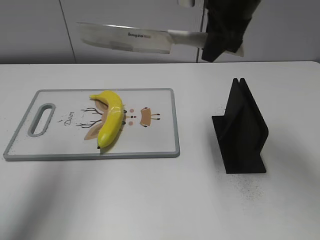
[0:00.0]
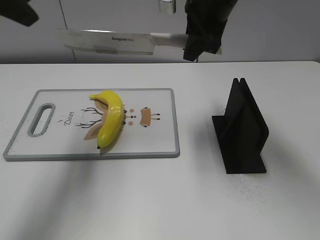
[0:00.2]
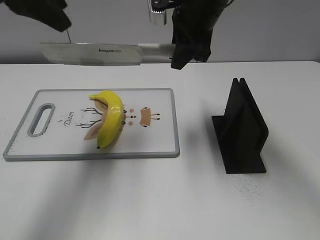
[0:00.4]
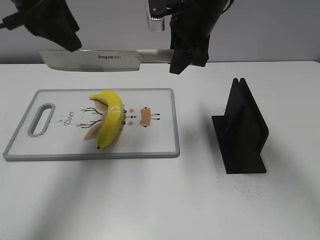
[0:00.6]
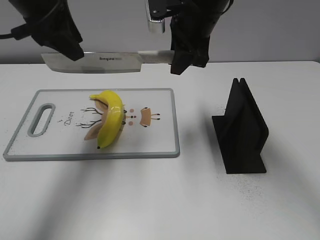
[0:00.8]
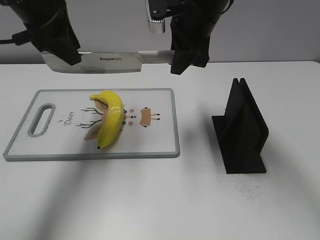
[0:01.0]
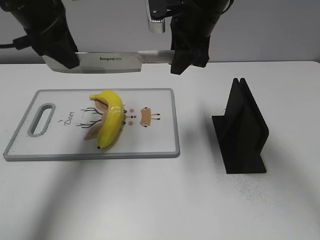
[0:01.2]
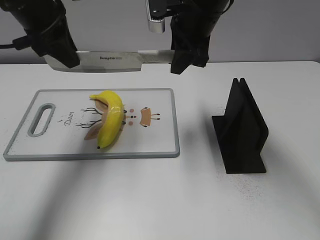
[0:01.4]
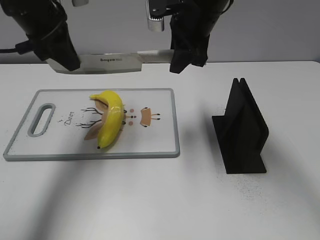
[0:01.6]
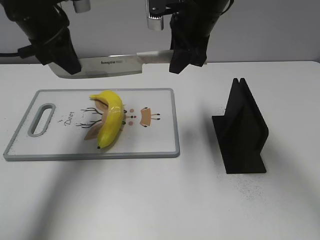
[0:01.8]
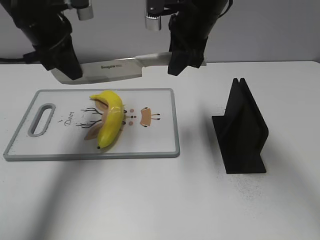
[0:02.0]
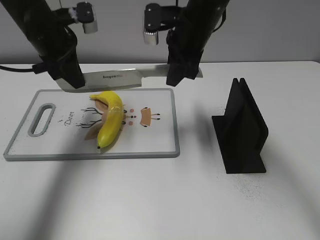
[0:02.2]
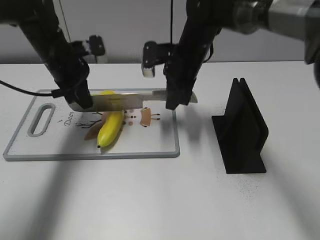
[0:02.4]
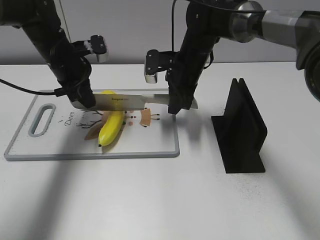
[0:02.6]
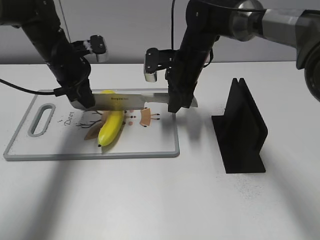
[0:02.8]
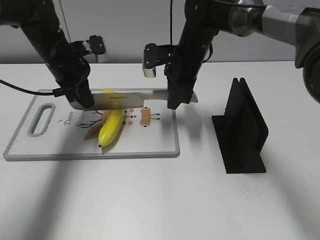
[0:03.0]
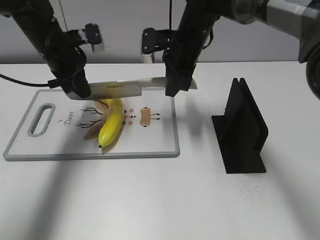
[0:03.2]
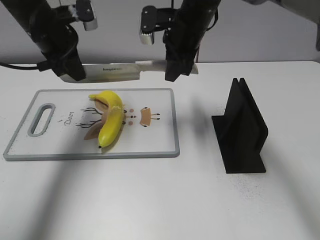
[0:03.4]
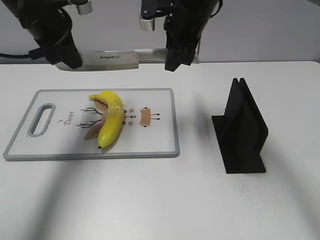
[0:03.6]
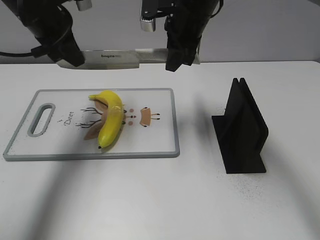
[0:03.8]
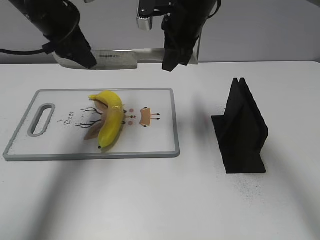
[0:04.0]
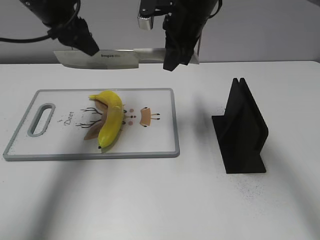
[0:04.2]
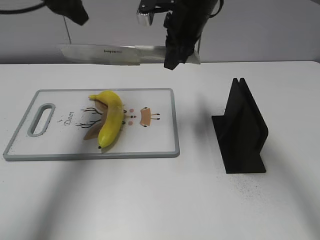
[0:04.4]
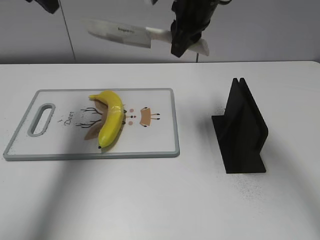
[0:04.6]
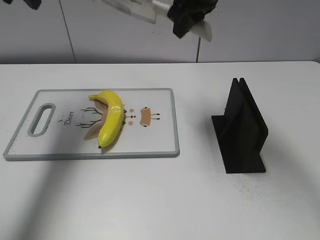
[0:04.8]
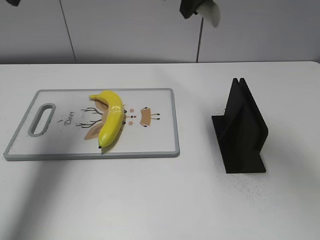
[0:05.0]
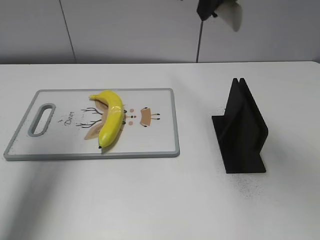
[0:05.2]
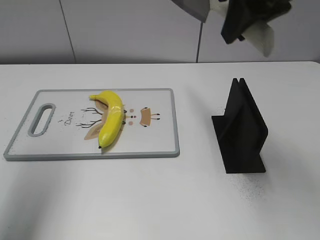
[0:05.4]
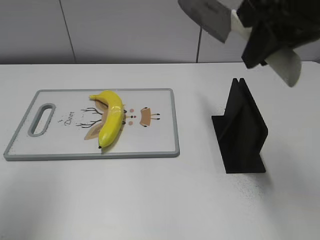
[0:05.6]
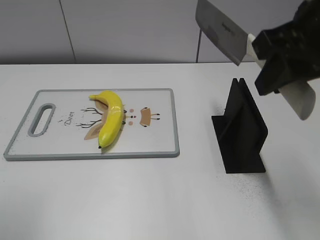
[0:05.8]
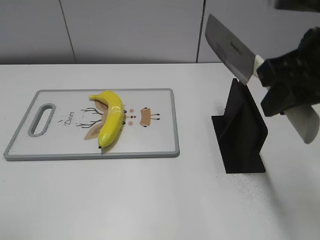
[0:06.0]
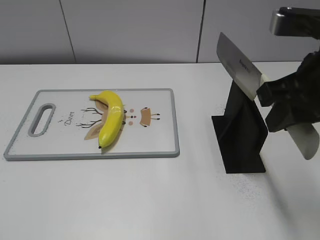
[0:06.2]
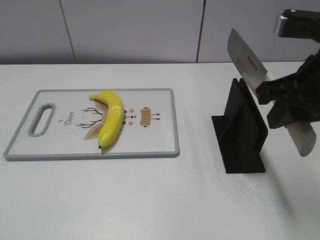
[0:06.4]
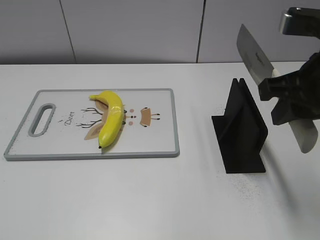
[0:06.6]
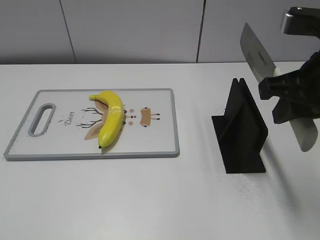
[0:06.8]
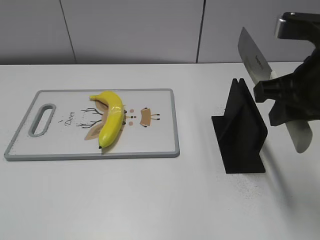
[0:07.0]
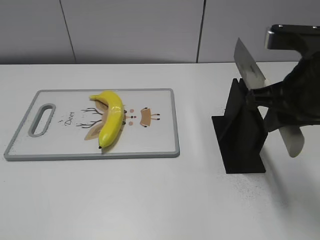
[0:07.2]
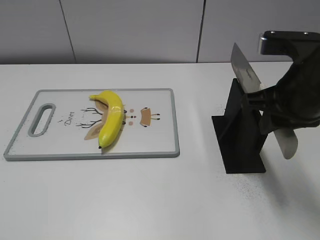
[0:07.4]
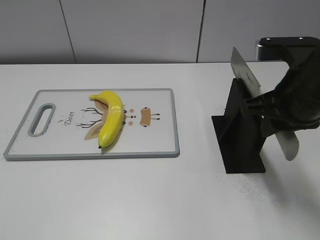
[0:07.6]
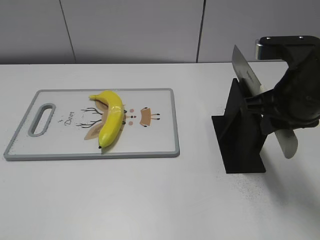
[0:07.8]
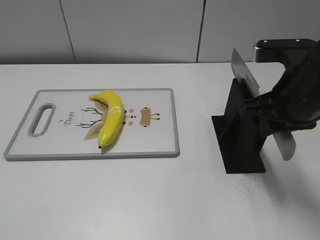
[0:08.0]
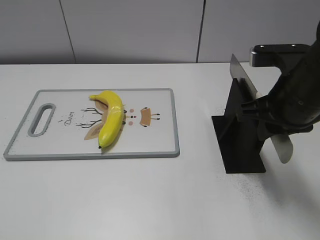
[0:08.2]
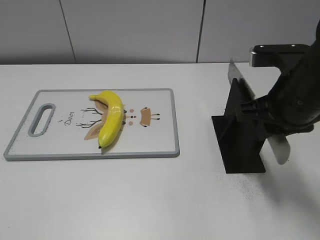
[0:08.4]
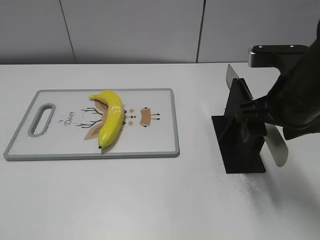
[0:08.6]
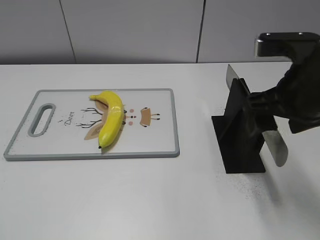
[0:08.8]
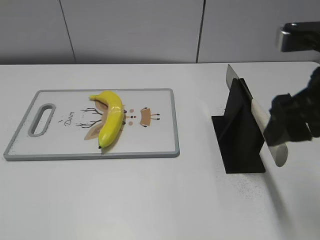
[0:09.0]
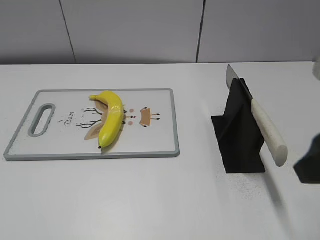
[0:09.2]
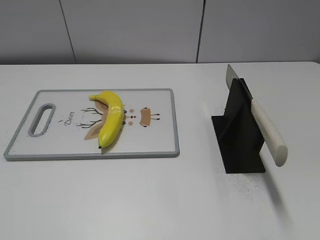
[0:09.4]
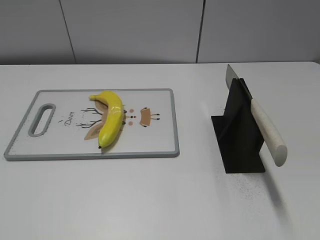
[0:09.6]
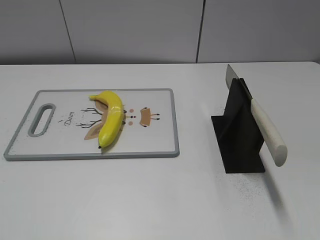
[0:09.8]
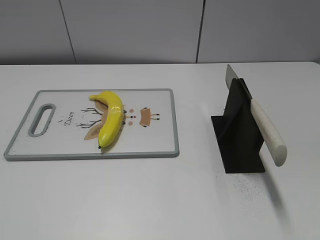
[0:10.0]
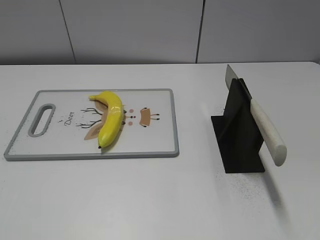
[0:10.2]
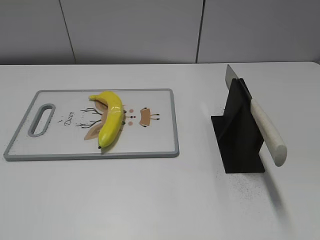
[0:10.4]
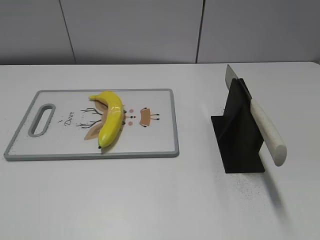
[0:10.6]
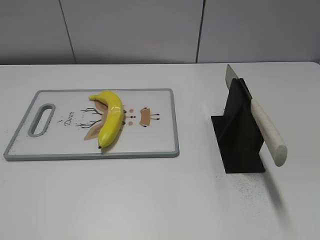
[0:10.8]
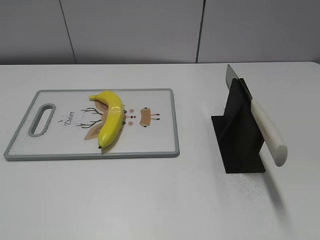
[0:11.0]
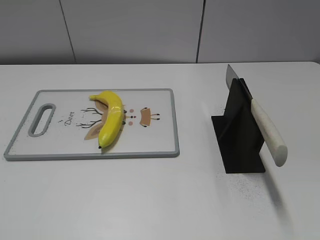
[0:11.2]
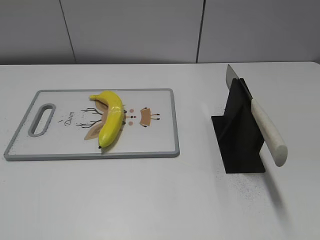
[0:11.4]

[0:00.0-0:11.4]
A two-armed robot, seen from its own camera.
Task of the whole recording: cut plastic banana.
Step, 0:00.0 to 0:03.4: Lift the knife with your right hand.
Step, 0:03.6 to 0:04.6: Cut the banana with your left hand.
Step, 0:04.8 to 0:06.6: Lift the knife with your right hand.
Step, 0:06.8 to 0:11.4: Place the knife on the storage rack with your right hand.
0:00.0 to 0:01.4: The left gripper travels forward, downward and to the right by roughly 15 cm, and closes its fingers. The right gripper shifts by approximately 5 cm.
0:01.4 to 0:02.8: Both grippers travel together downward, approximately 15 cm. The left gripper closes up.
0:02.8 to 0:04.2: Both grippers travel together upward, roughly 10 cm. The left gripper opens up.
0:04.2 to 0:05.6: The right gripper is displaced backward, upward and to the right by some 20 cm. The left gripper goes about 25 cm backward, to the left and upward.
0:05.6 to 0:07.2: The left gripper goes roughly 25 cm backward and downward, while the right gripper moves downward, about 10 cm.
0:07.2 to 0:08.6: The right gripper opens.
0:08.6 to 0:10.0: The right gripper travels backward and to the right by about 30 cm.

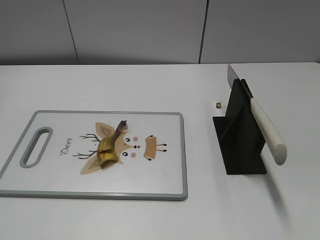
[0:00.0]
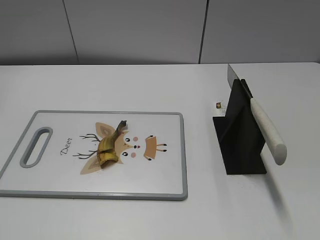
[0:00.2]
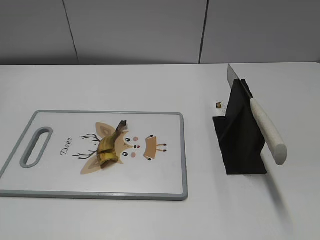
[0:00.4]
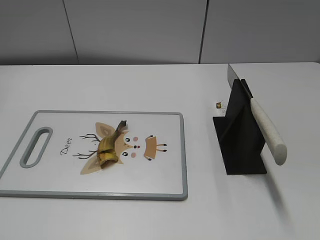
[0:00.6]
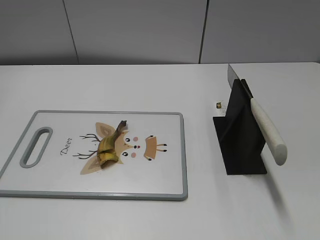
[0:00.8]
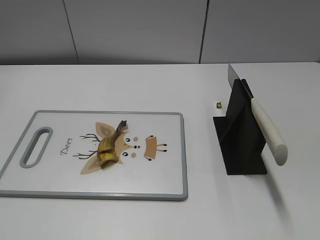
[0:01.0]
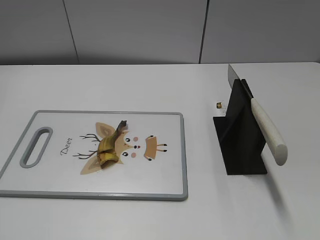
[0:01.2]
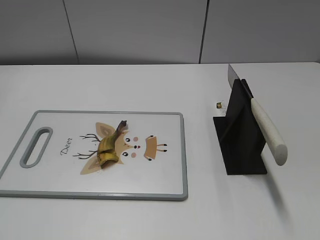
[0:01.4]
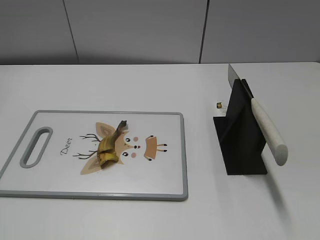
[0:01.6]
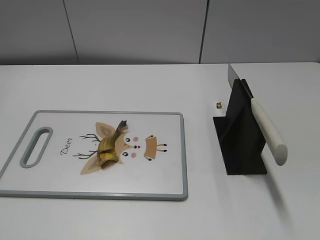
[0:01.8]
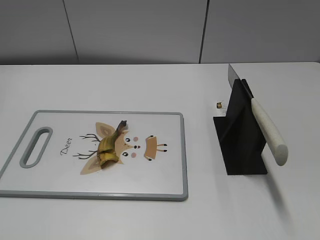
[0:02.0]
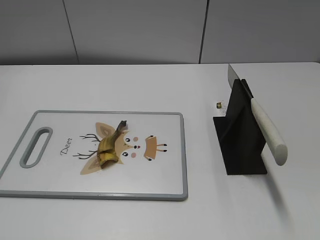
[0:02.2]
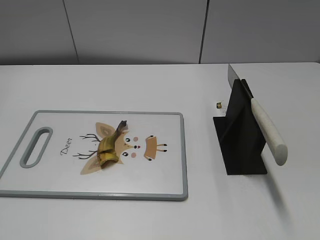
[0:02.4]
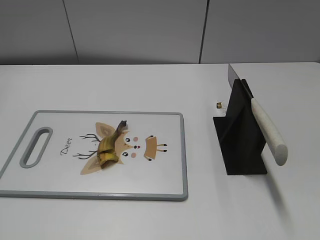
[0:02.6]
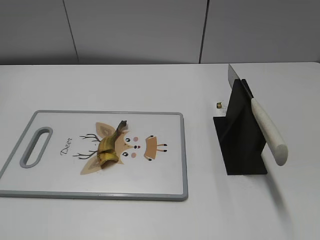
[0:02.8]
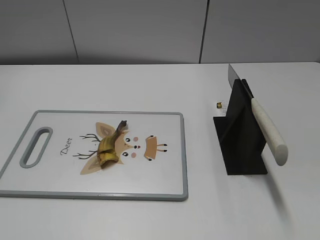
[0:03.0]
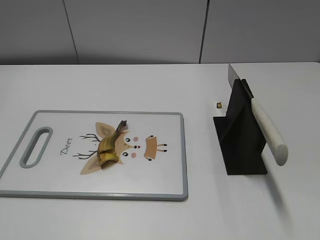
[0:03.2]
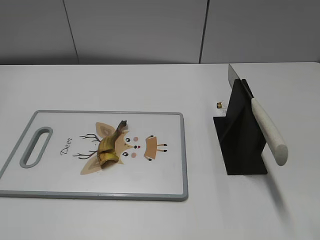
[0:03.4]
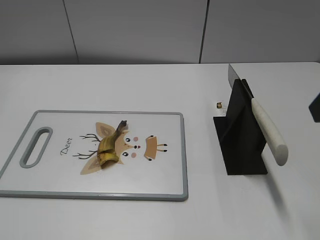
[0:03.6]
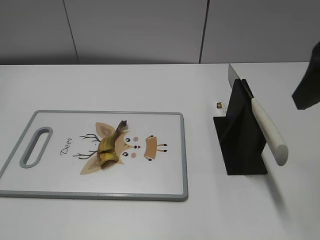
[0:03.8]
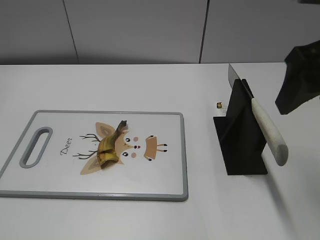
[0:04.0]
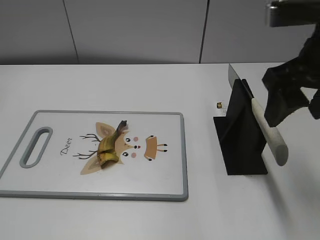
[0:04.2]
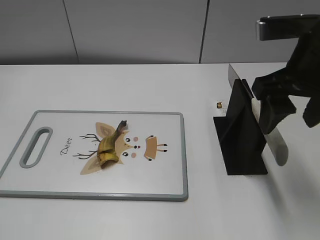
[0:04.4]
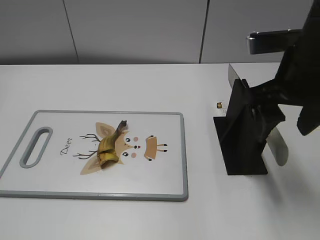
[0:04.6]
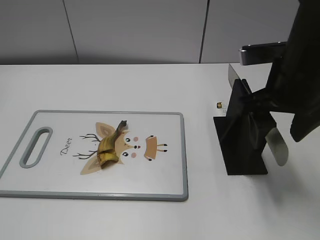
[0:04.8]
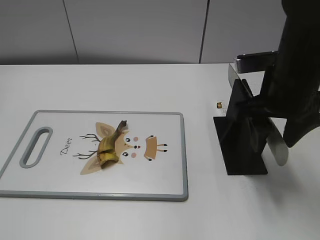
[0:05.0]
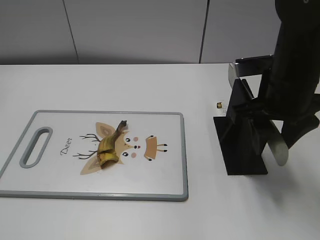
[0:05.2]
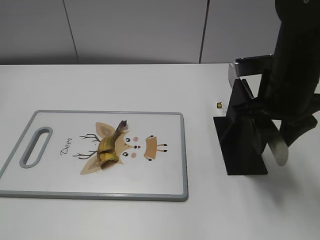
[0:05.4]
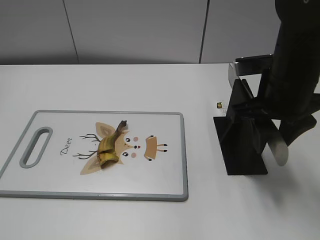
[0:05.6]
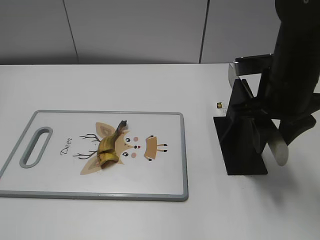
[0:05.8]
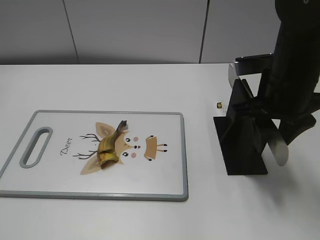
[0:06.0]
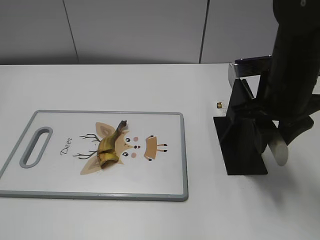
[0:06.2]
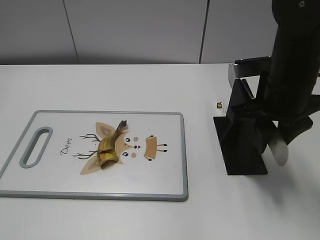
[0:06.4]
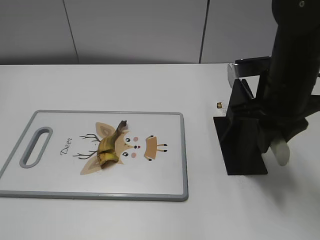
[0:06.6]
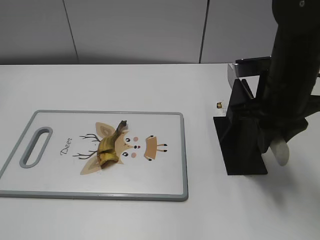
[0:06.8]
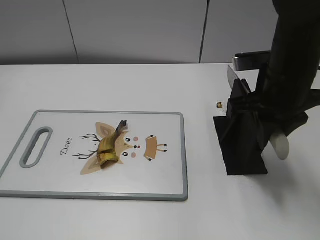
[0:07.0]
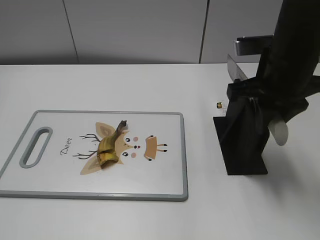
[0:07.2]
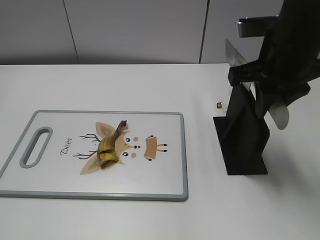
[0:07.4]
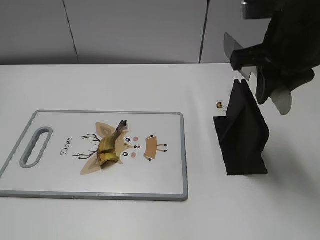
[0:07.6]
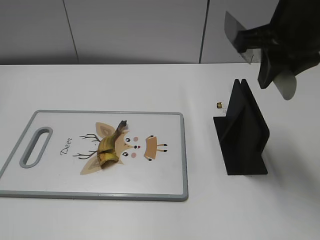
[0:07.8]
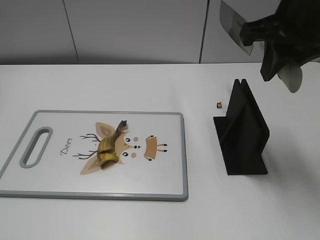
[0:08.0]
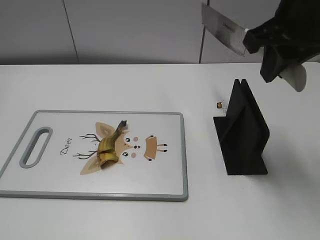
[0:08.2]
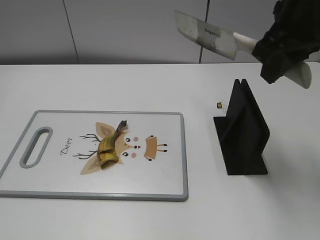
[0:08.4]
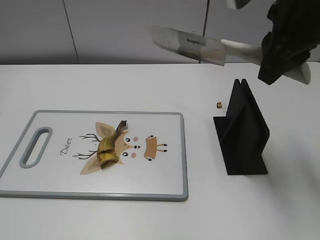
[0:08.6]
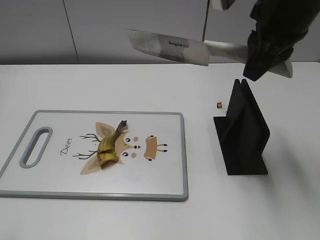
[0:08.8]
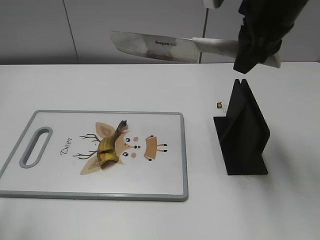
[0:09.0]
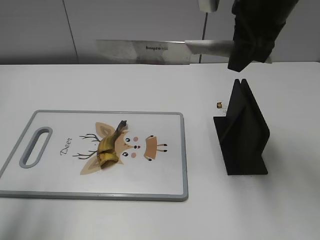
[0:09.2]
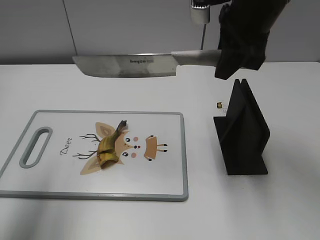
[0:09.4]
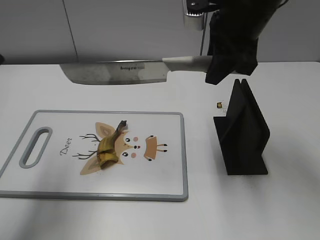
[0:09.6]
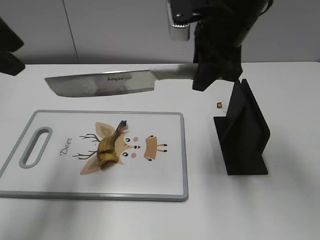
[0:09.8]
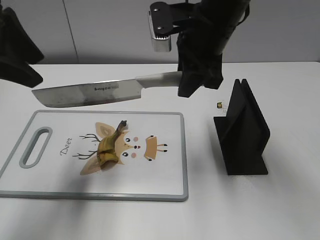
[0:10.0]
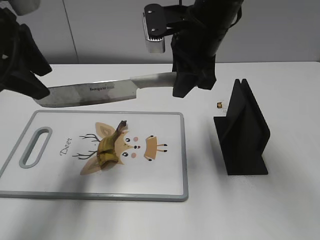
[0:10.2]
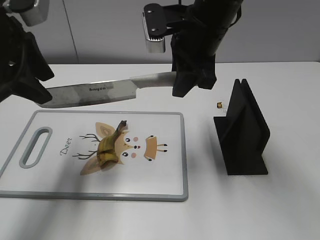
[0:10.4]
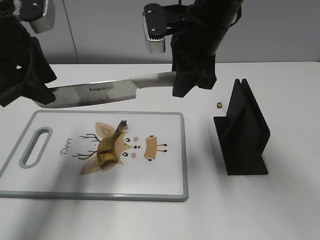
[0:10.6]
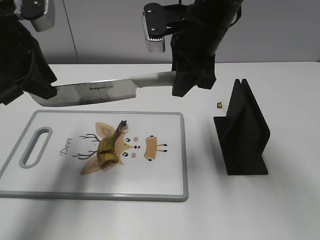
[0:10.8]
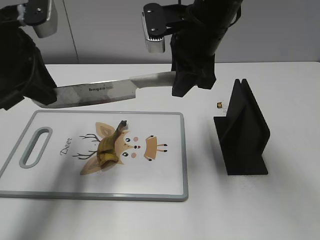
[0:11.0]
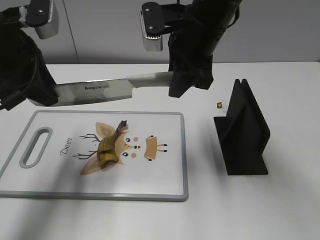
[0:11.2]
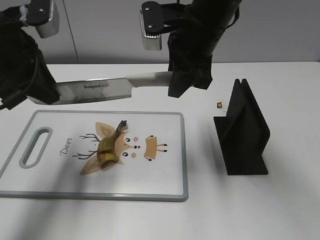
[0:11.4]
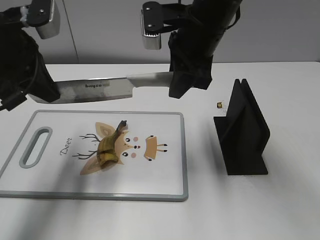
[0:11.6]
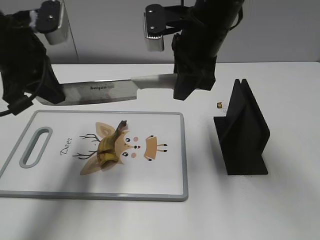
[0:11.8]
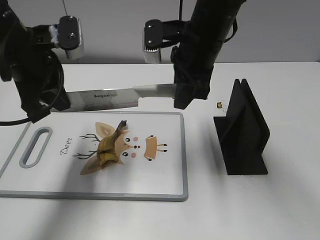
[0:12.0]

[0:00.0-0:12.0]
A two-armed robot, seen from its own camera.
Task of the whole recording: cut banana.
Step, 0:00.0 to 0:08.2: Grab the knife handle with your right hand.
0:03.0 to 0:04.4: The right gripper is displaced forward and to the left by approximately 20 cm.
0:04.4 to 0:06.0: The right gripper is displaced downward by some 5 cm, and closes its fingers.
0:06.0 to 0:07.6: The right gripper is displaced upward by about 5 cm, and closes up.
0:07.6 to 0:09.0: The left gripper is displaced forward and upward by some 10 cm.
0:09.0 to 0:10.4: The left gripper moves forward and to the right, roughly 20 cm; the right gripper is displaced to the left and downward by roughly 10 cm.
0:10.4 to 0:12.0: The left gripper shifts by about 5 cm, and closes up.
